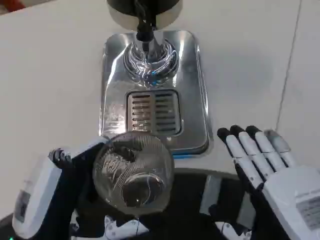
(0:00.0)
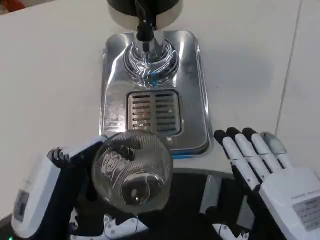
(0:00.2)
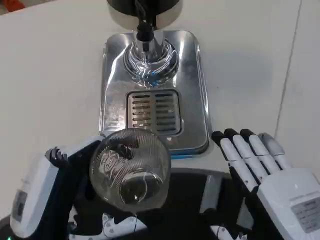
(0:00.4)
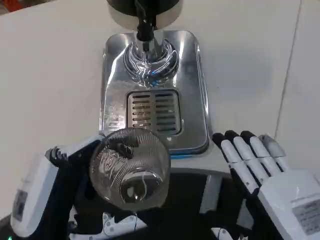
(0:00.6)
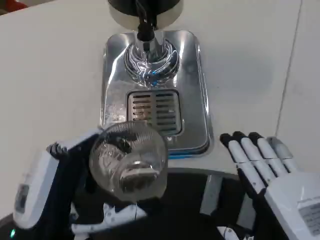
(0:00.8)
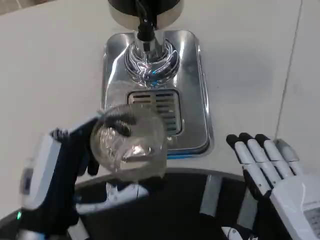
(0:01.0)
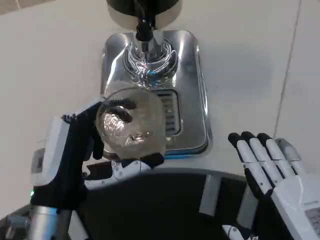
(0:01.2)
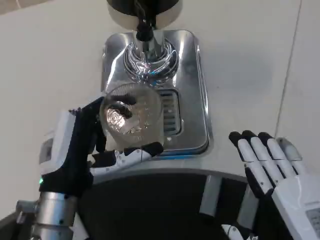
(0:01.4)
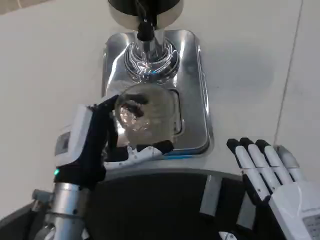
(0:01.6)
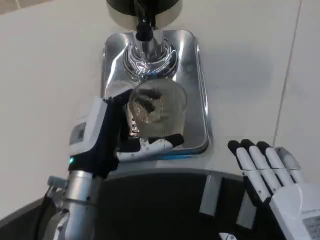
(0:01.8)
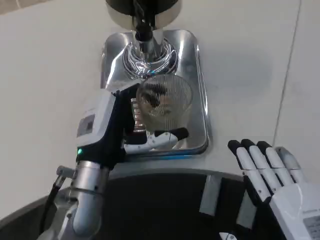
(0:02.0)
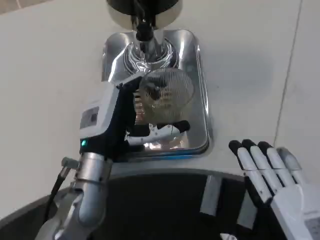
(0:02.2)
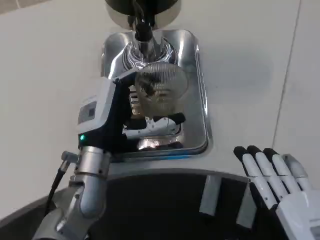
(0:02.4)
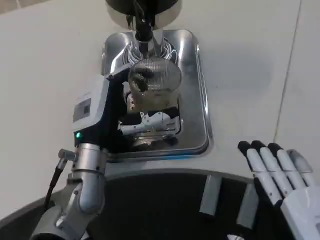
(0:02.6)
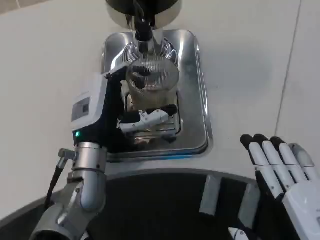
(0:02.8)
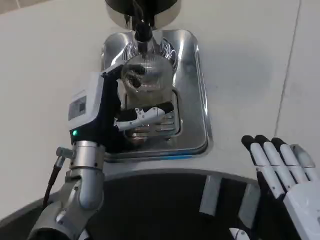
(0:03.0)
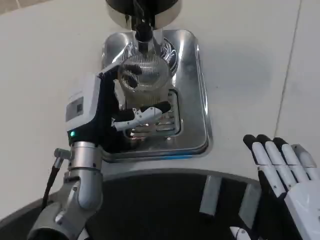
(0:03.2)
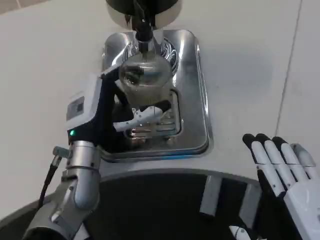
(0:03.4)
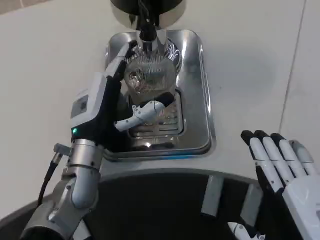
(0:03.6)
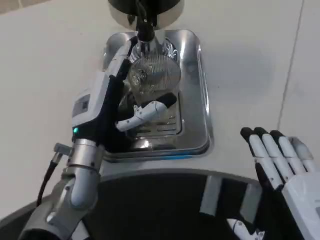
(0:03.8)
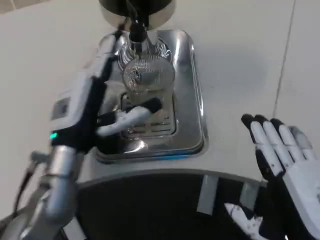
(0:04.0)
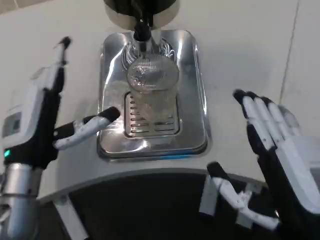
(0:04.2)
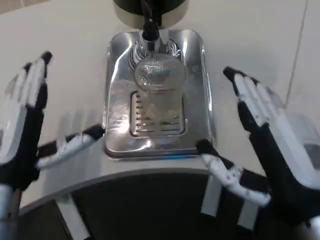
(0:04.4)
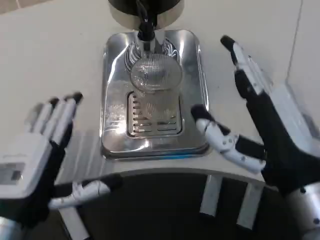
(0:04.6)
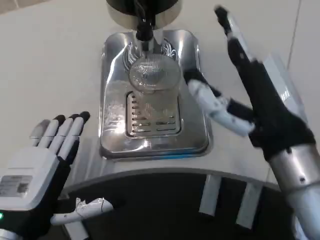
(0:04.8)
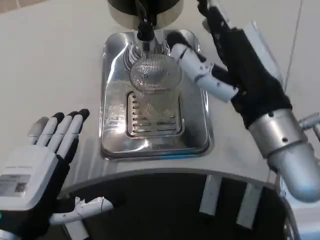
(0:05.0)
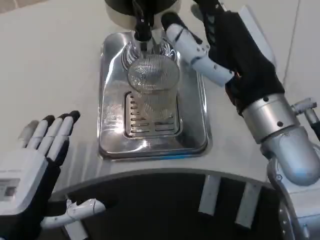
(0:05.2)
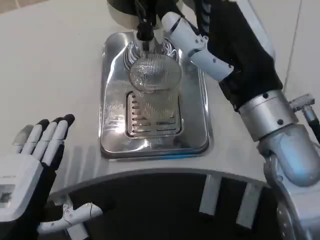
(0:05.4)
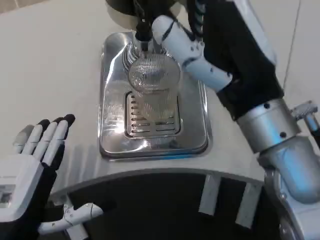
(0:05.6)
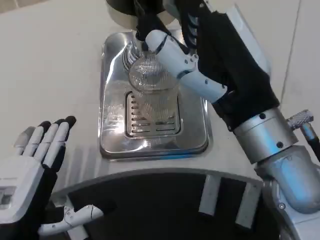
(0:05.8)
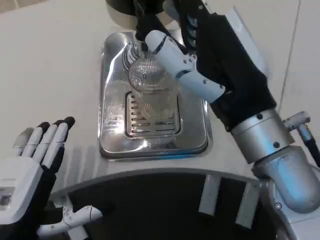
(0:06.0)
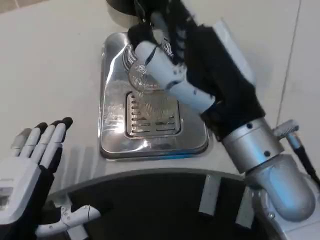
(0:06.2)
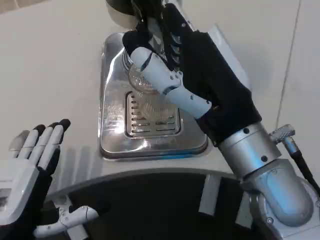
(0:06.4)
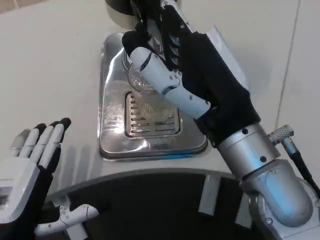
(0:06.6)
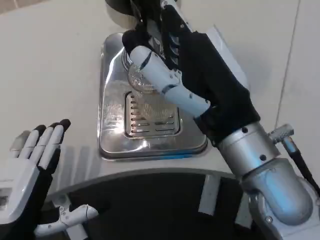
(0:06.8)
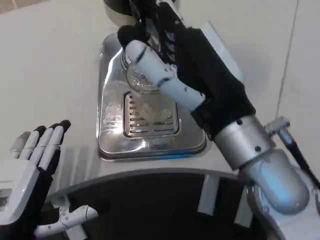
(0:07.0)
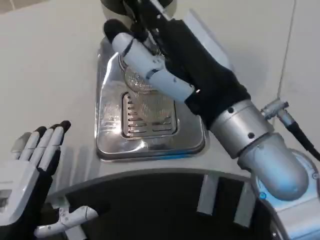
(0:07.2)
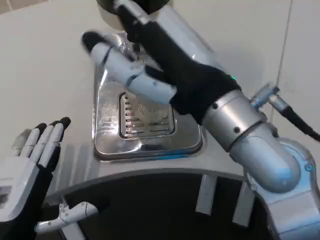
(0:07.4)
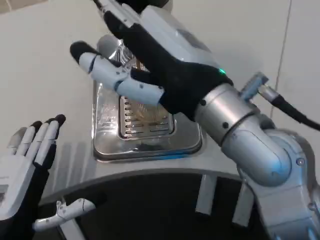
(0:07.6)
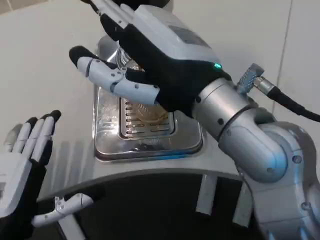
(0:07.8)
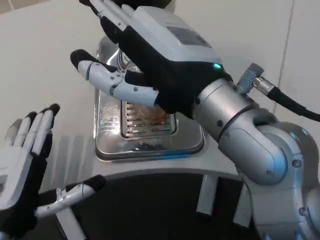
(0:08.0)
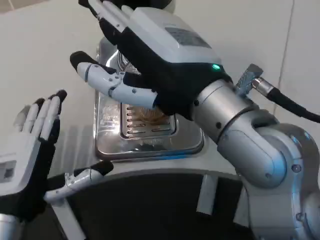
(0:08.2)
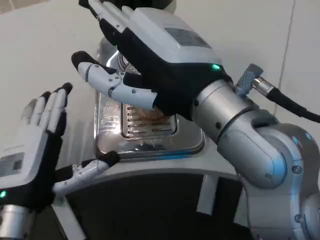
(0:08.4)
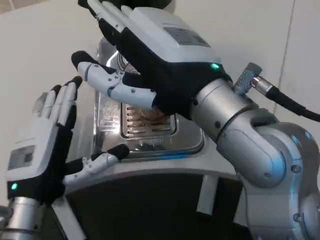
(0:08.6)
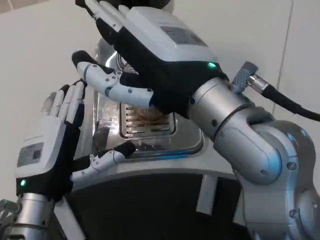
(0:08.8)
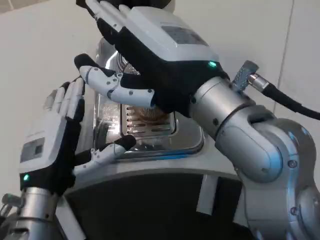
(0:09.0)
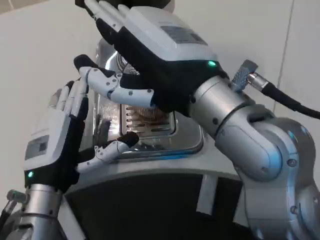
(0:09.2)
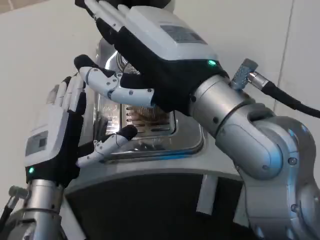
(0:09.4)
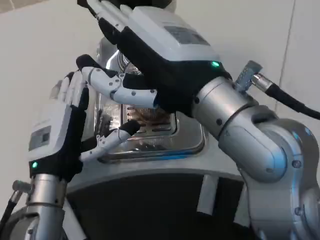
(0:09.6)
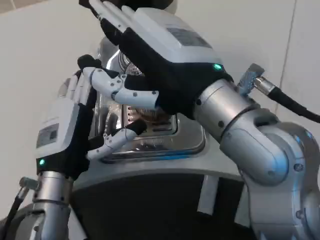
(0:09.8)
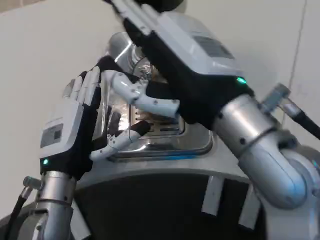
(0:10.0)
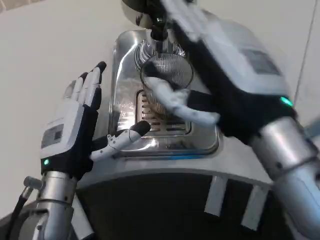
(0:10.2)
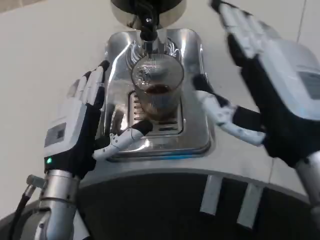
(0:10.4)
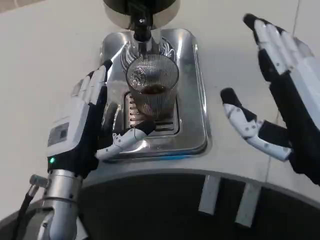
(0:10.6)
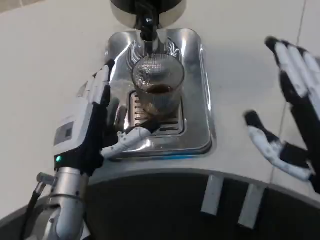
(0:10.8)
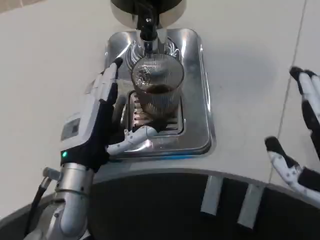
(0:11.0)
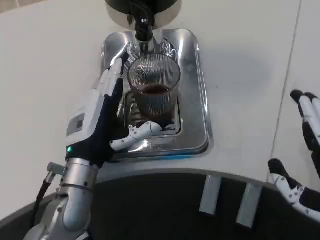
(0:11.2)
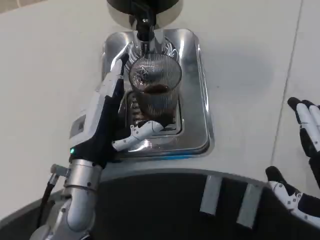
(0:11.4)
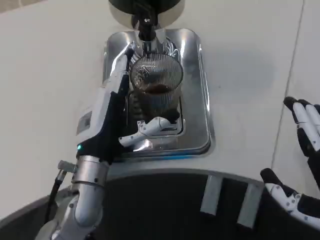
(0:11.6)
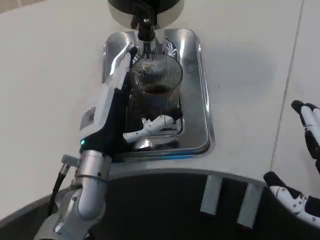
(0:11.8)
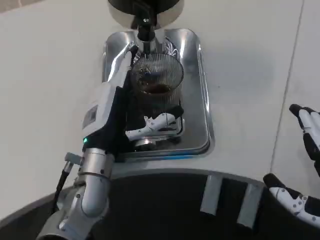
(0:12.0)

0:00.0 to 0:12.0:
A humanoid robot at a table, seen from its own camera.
Task of the whole recording: Grasp the cup under the faucet to collect the drink, then remove the cup.
0:00.0 to 0:01.6: The left hand moves forward, approximately 10 cm.
0:01.6 to 0:03.0: The left hand moves forward, some 5 cm.
0:03.0 to 0:04.4: The right hand heads forward, covering some 5 cm; the left hand moves backward and to the left, approximately 15 cm.
0:04.4 to 0:06.0: The right hand travels forward, upward and to the left by some 10 cm. The left hand travels backward by roughly 5 cm.
0:06.0 to 0:07.6: The right hand moves approximately 5 cm.
0:07.6 to 0:09.0: The left hand travels forward by some 10 cm.
0:09.0 to 0:10.4: The right hand heads to the right and downward, covering some 10 cm.
0:10.4 to 0:12.0: The left hand shifts by roughly 5 cm, while the right hand moves to the right and downward, about 10 cm.

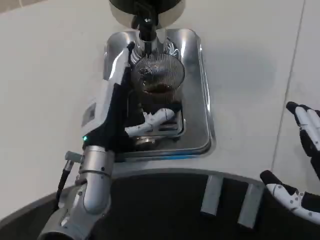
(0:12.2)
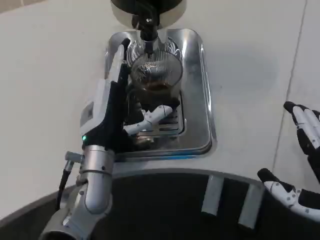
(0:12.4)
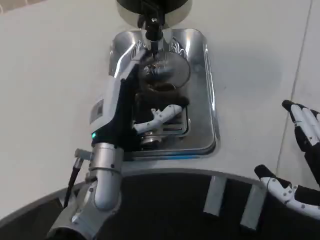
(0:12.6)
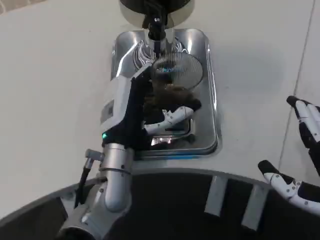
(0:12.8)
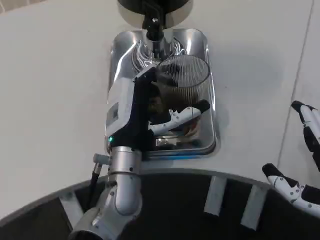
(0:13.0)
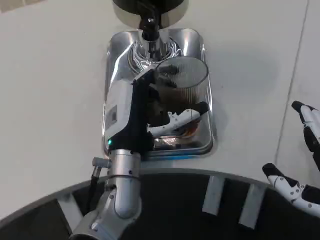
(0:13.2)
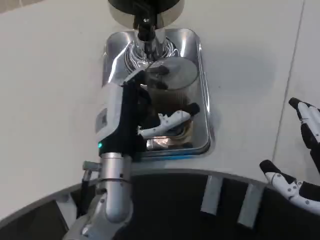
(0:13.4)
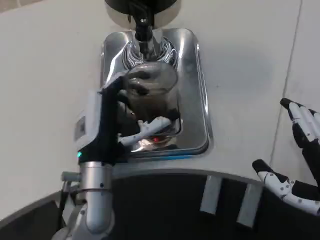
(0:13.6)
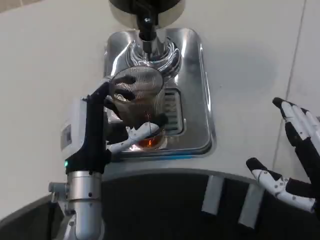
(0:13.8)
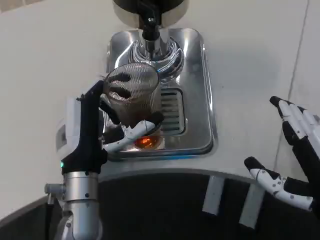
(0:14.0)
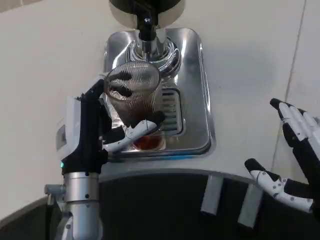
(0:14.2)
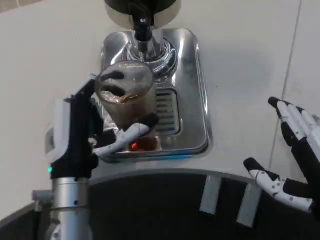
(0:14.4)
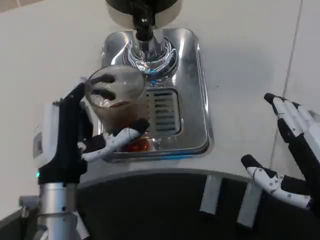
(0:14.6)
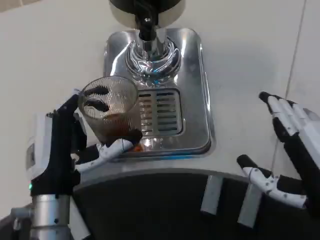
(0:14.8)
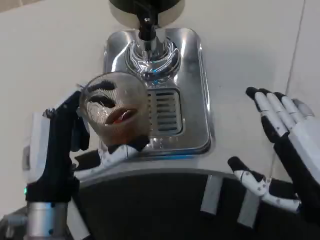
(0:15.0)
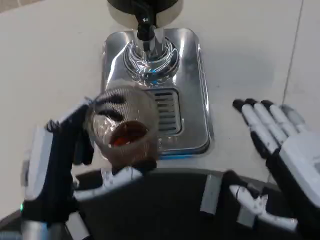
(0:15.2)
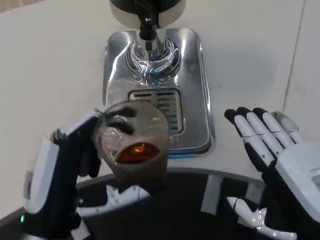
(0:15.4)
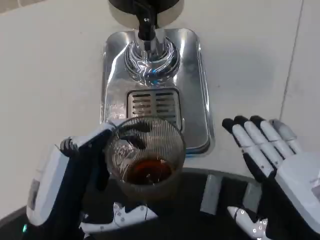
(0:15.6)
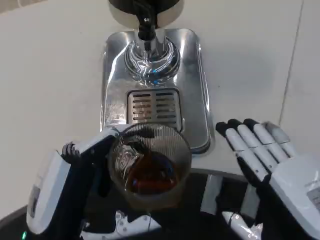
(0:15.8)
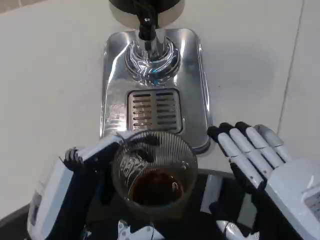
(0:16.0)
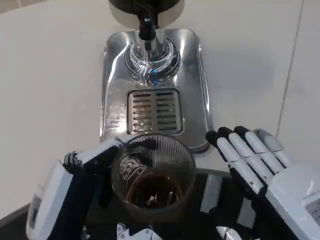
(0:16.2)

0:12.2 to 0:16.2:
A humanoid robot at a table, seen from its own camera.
Task of the whole recording: Grasp the cup under the faucet to collect the drink, then remove the cup.
0:12.2 to 0:13.6: There are only small adjustments of the hands.
0:13.6 to 0:14.8: The left hand travels backward by roughly 5 cm.
0:14.8 to 0:16.2: The left hand shifts some 10 cm backward. Meanwhile the right hand moves backward, about 5 cm.

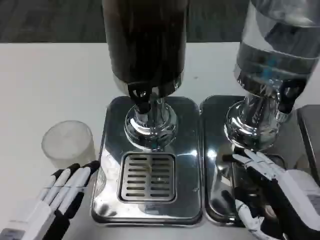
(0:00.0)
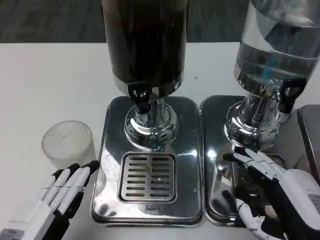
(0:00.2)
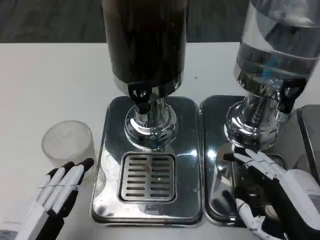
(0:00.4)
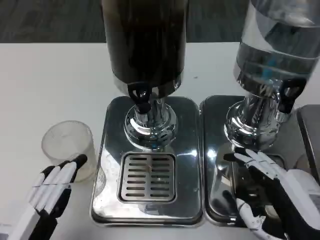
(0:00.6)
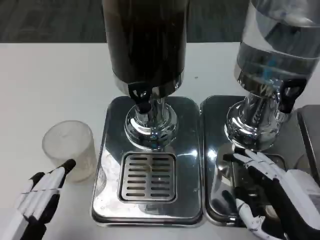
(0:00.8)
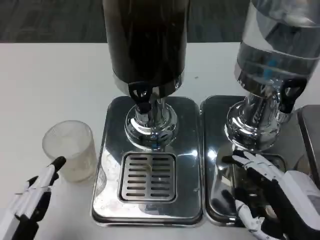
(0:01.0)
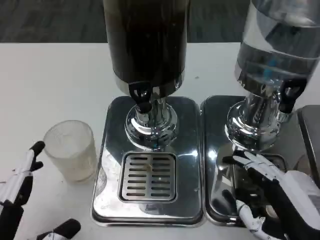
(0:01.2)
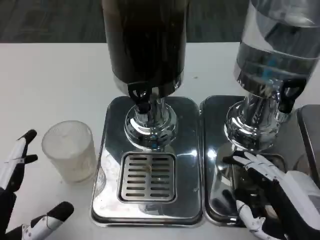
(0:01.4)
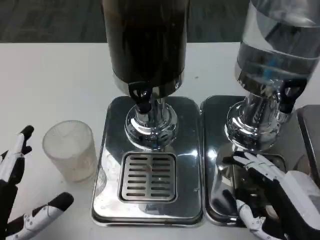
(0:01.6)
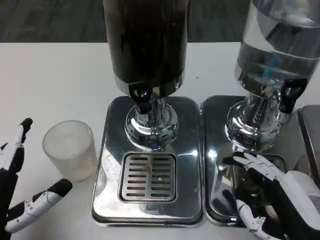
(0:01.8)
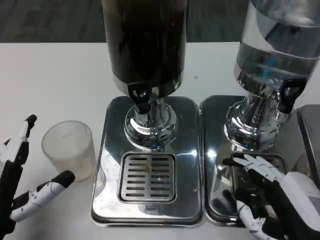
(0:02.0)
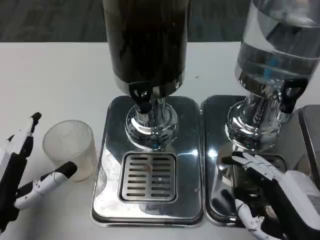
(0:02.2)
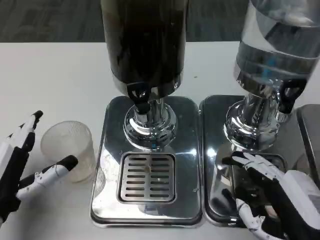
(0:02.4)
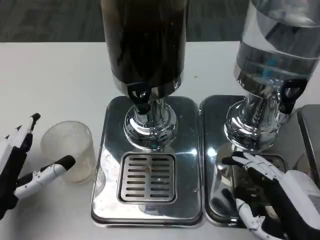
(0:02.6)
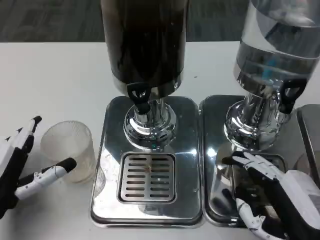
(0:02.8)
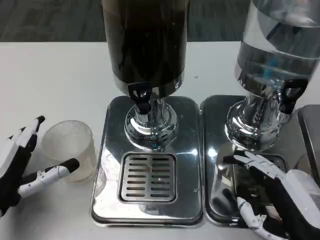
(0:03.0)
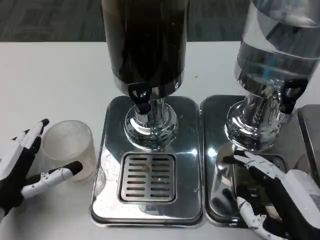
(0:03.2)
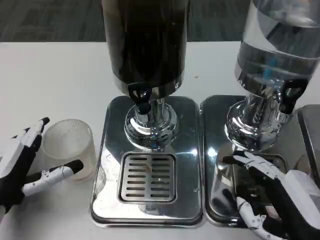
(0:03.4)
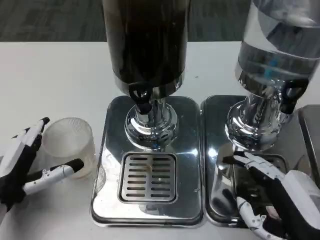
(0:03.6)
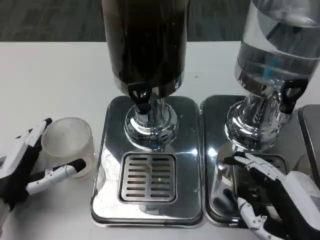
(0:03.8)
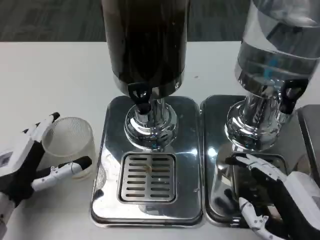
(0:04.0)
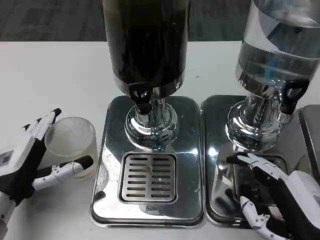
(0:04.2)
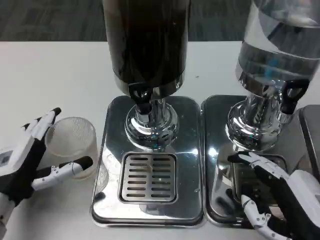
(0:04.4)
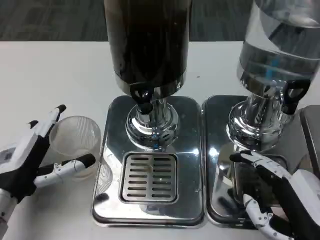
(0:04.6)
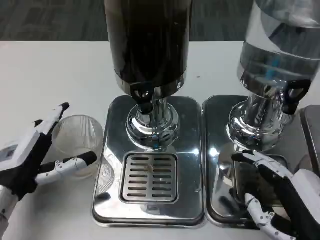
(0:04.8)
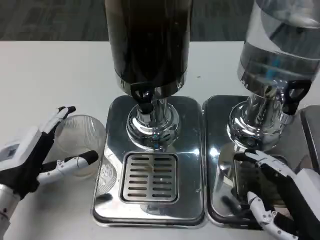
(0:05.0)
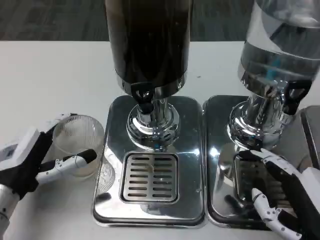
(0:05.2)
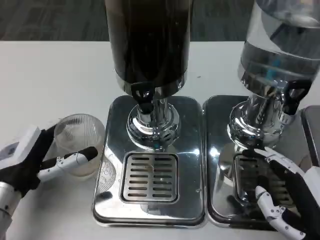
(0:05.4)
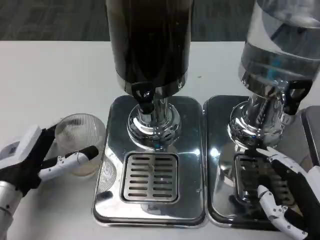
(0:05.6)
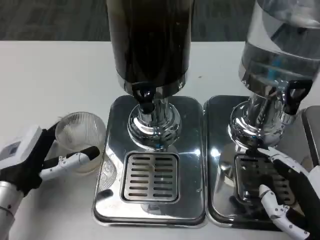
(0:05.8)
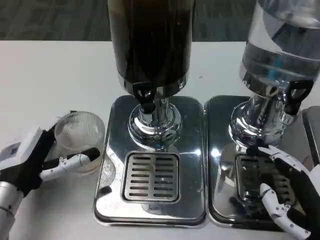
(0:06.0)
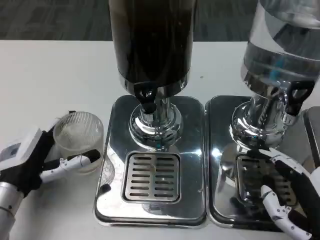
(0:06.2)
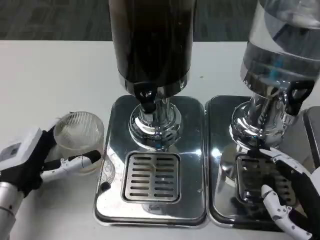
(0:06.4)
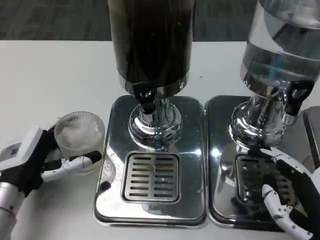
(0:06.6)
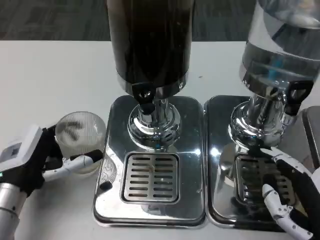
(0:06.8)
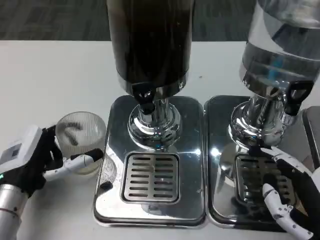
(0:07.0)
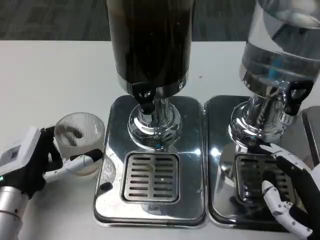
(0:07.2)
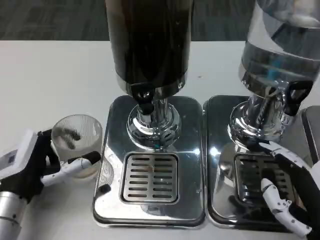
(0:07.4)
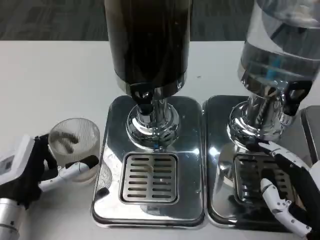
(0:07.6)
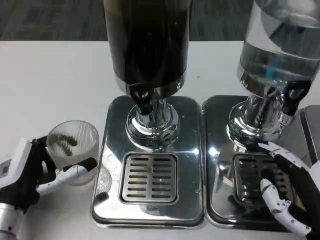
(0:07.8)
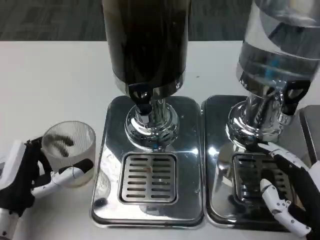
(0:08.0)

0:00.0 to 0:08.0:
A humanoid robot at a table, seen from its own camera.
Task of the whole recording: Grasp the cup under the faucet to collect the drink, then remove the cup.
0:01.6 to 0:03.2: The left hand goes roughly 10 cm forward.
